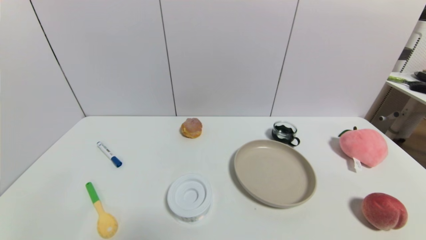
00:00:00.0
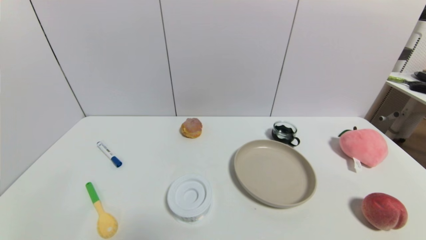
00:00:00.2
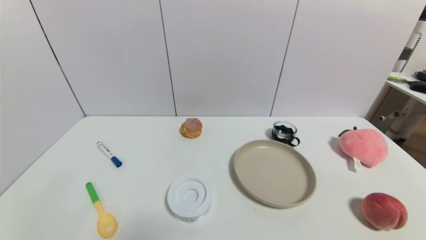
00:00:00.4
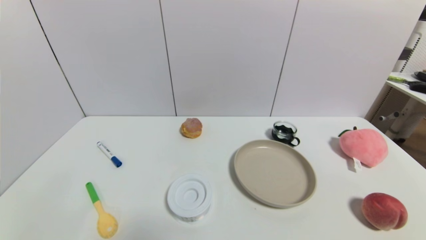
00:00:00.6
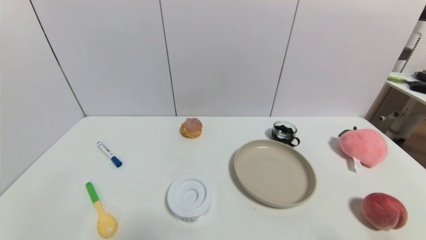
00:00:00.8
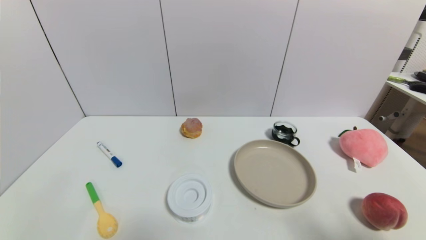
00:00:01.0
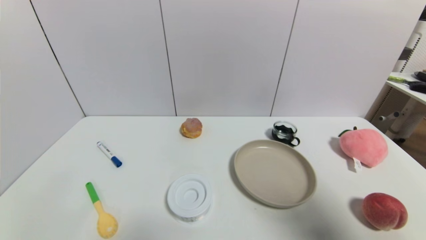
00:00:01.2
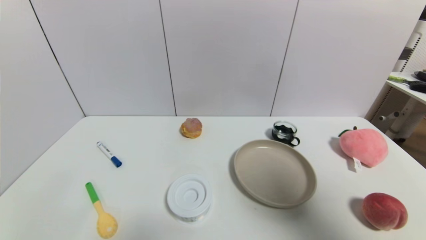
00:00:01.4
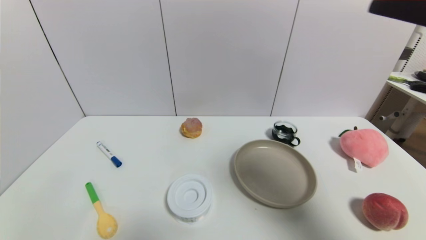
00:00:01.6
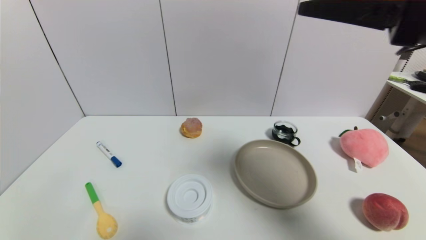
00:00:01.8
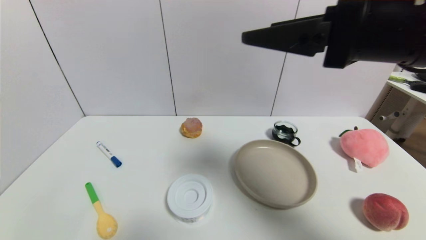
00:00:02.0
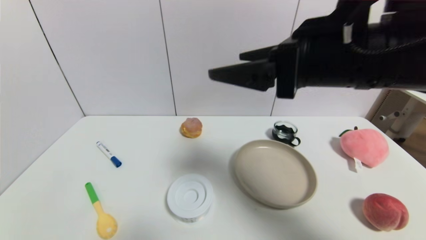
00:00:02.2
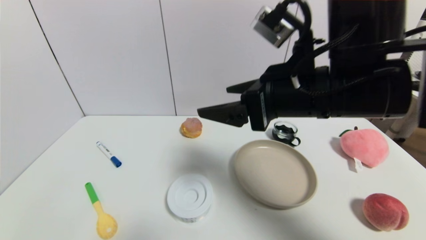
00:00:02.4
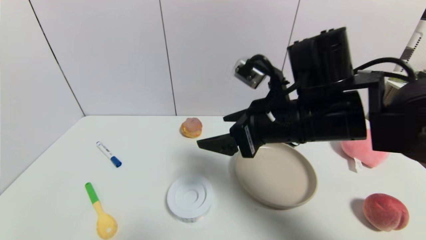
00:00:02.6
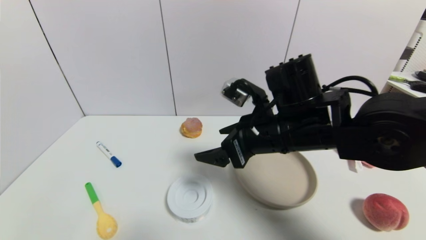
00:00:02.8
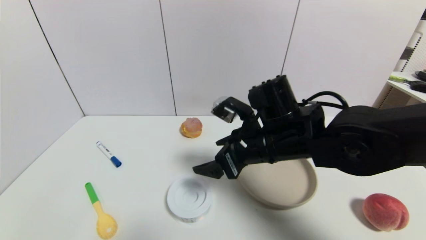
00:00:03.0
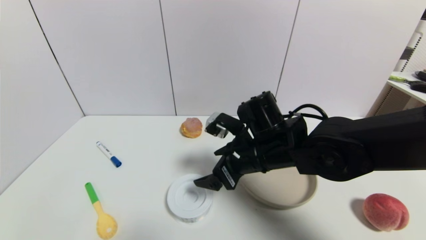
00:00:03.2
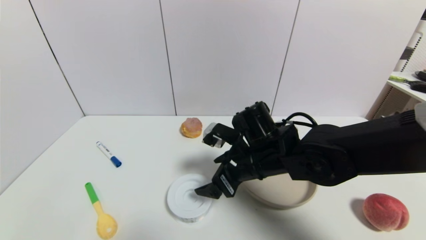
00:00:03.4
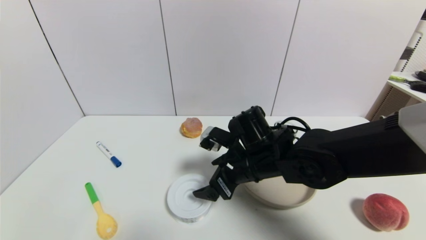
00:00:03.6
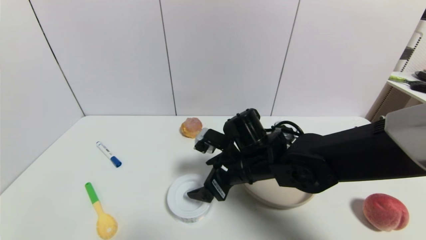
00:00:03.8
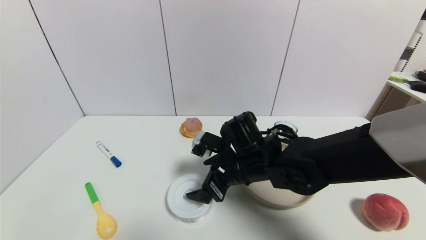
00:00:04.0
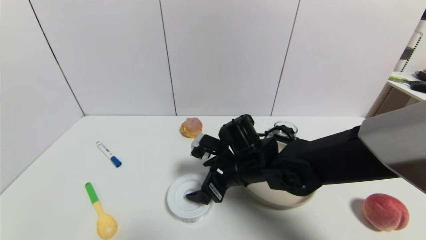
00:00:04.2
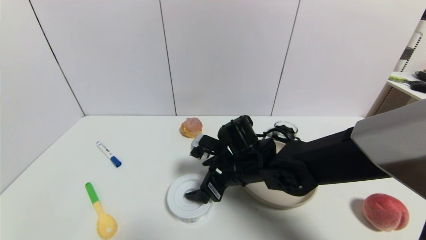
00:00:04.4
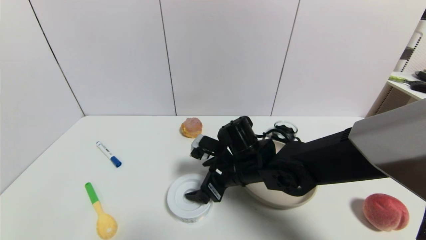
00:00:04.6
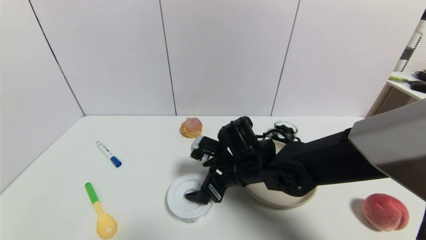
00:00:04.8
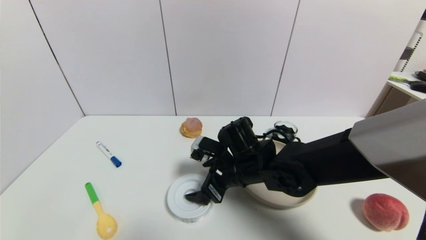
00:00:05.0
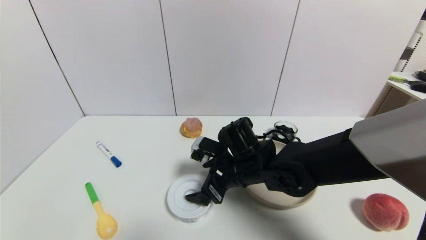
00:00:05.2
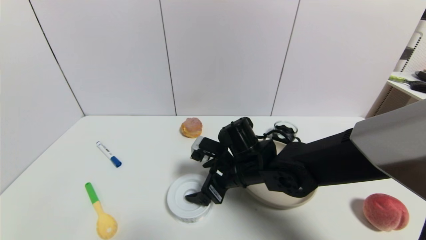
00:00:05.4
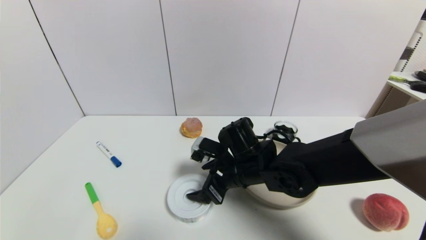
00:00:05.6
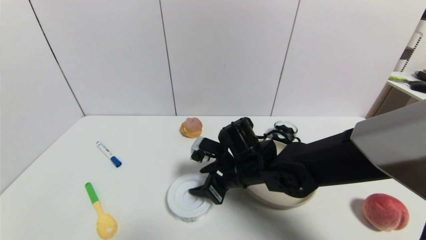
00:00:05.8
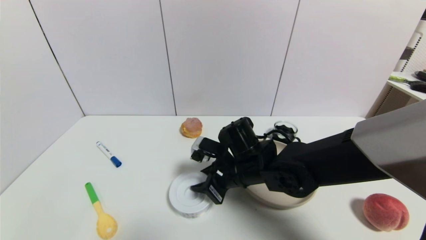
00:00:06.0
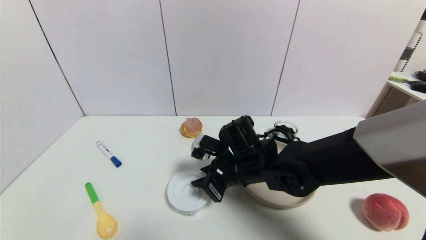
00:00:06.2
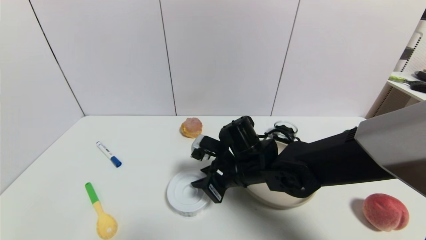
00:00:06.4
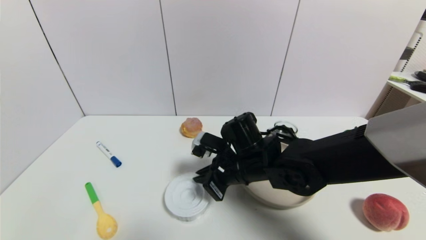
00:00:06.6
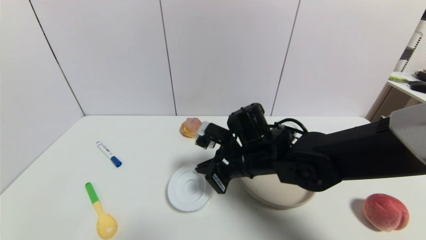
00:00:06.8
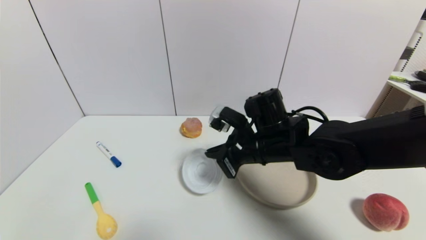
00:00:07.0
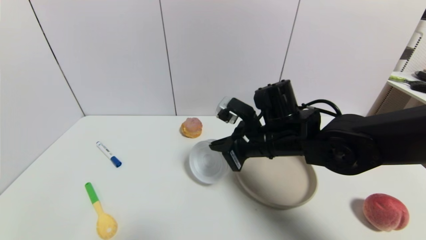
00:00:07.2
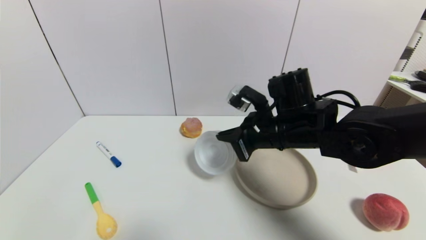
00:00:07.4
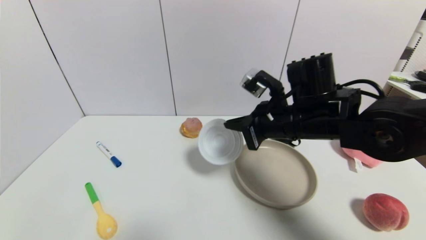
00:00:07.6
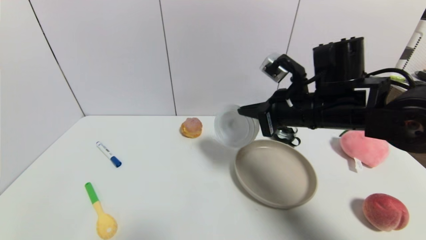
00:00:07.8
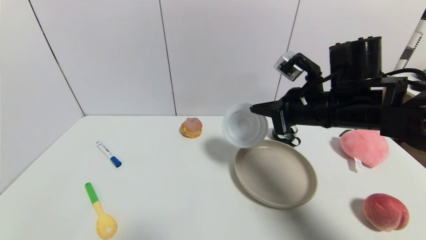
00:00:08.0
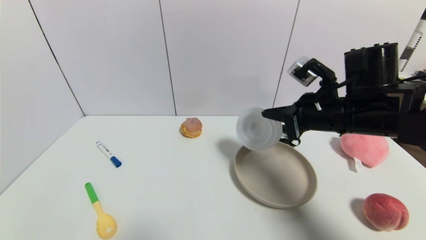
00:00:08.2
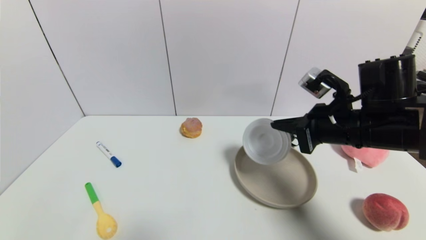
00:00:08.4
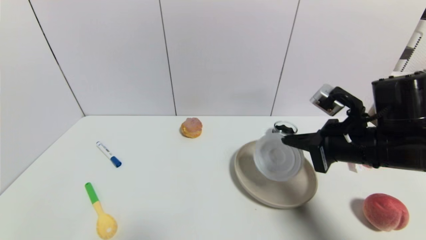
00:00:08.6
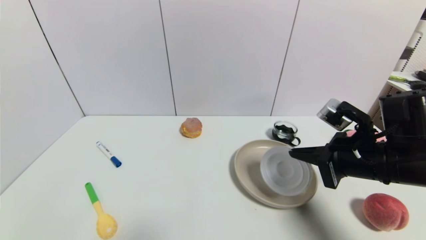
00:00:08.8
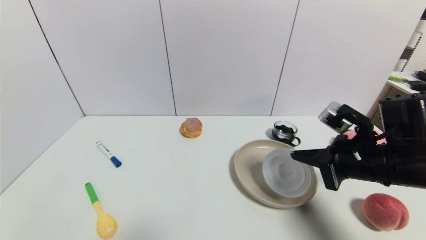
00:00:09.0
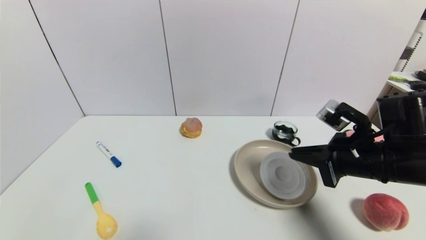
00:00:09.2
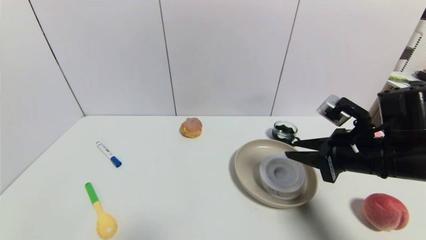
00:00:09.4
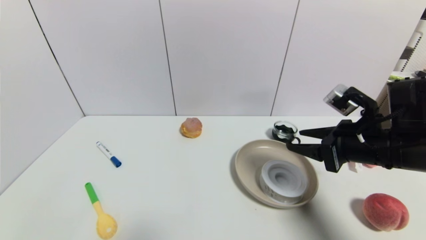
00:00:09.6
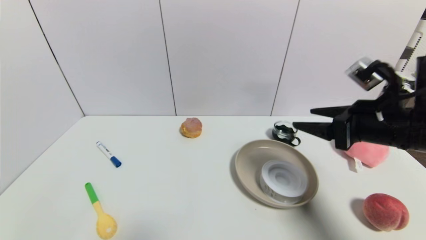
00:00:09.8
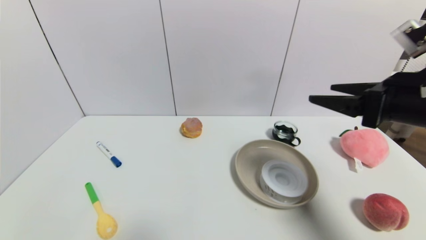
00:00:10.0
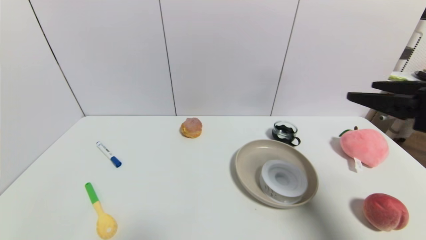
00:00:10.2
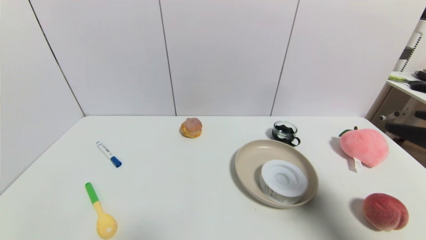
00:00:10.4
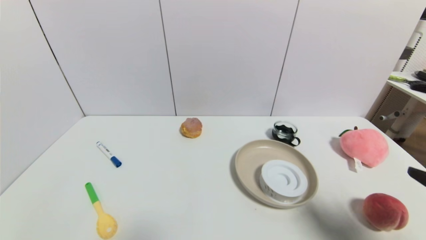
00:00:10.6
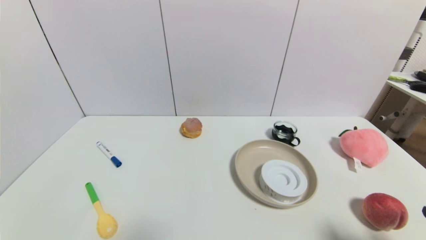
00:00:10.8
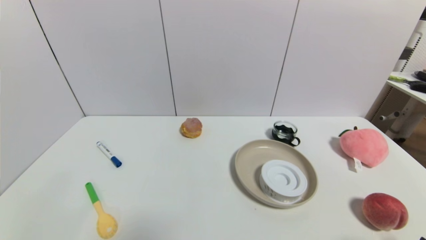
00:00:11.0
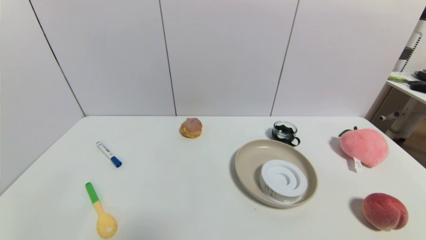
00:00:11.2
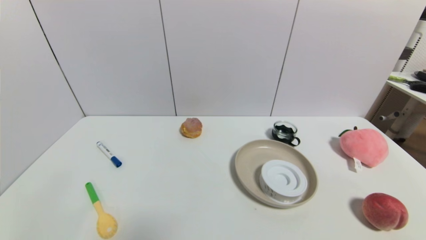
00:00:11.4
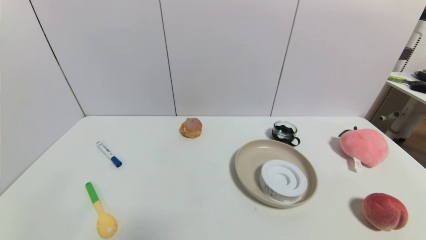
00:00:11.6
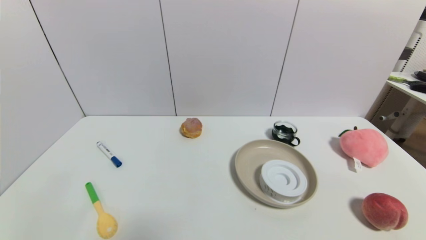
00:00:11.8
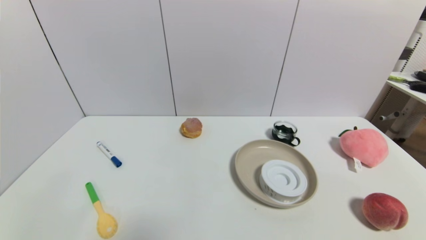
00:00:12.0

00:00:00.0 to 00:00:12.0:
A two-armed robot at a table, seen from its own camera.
Task of the whole recording: use a gripper to pick the target object and place on the brown plate.
Step, 00:00:00.0 to 00:00:06.6: Grasp the tape with the right gripper.
Step, 00:00:06.8 to 00:00:09.6: Place the tape on the brown plate with the right gripper.
00:00:00.0 to 00:00:01.6: The right gripper is displaced upward and forward by roughly 35 cm.
00:00:01.6 to 00:00:03.0: The right gripper is displaced to the left, downward and forward by approximately 30 cm.
00:00:03.0 to 00:00:04.4: The right gripper moves downward, about 10 cm.
00:00:04.4 to 00:00:06.0: The right gripper closes its fingers.
00:00:06.0 to 00:00:07.6: The right gripper moves upward and to the right, some 15 cm, and closes.
00:00:07.6 to 00:00:09.0: The right gripper heads to the right and backward, covering approximately 15 cm.
00:00:09.0 to 00:00:10.4: The right gripper travels backward, upward and to the right by approximately 15 cm, and opens up.
00:00:10.4 to 00:00:12.0: The right gripper travels downward and backward by approximately 25 cm.
